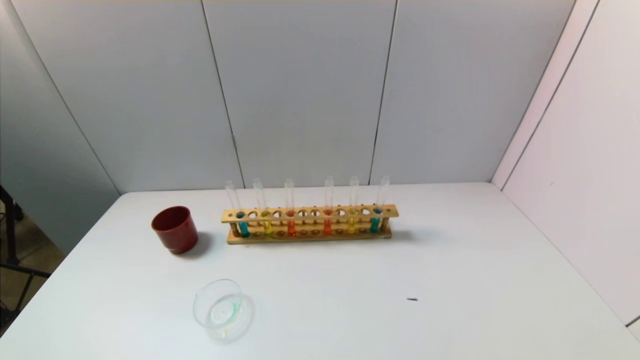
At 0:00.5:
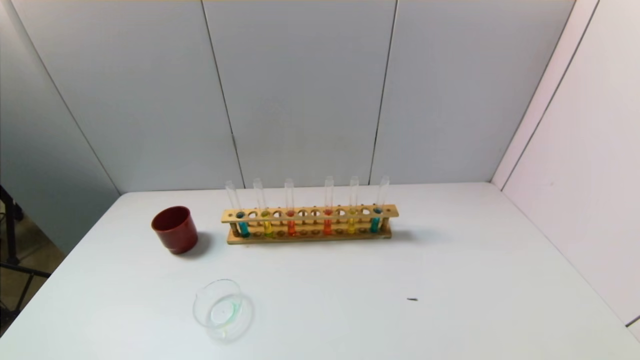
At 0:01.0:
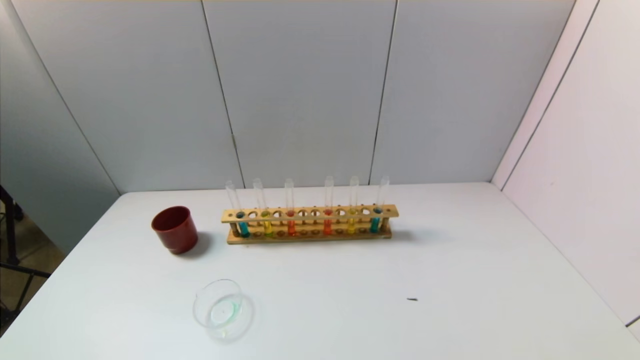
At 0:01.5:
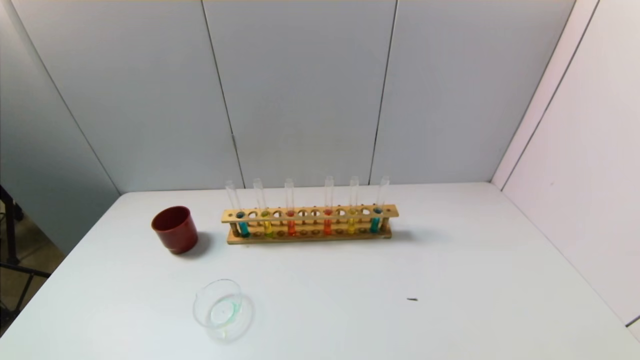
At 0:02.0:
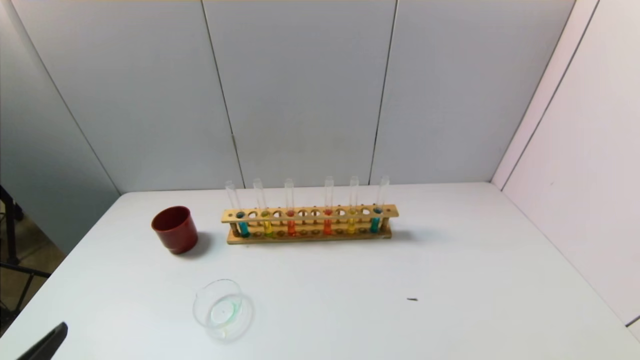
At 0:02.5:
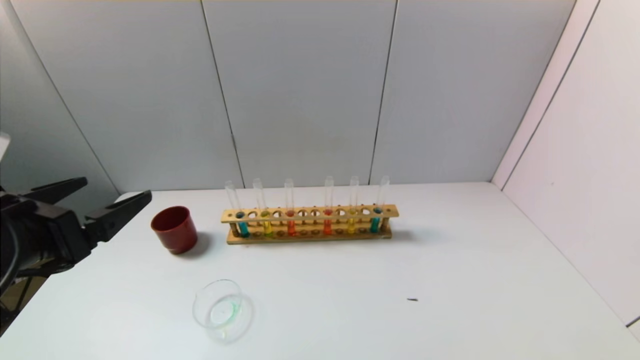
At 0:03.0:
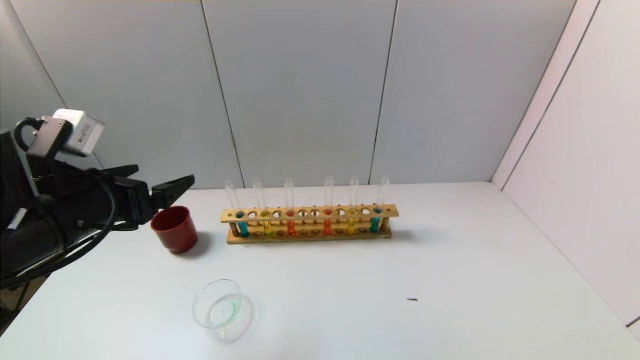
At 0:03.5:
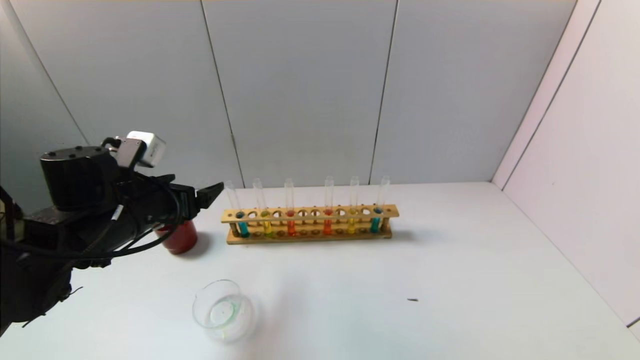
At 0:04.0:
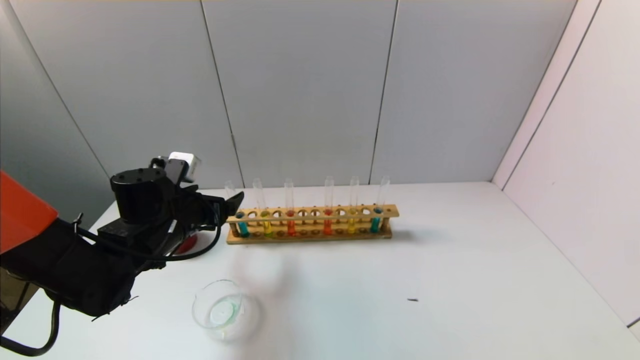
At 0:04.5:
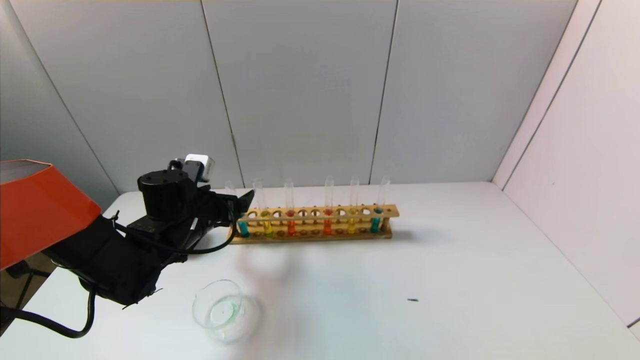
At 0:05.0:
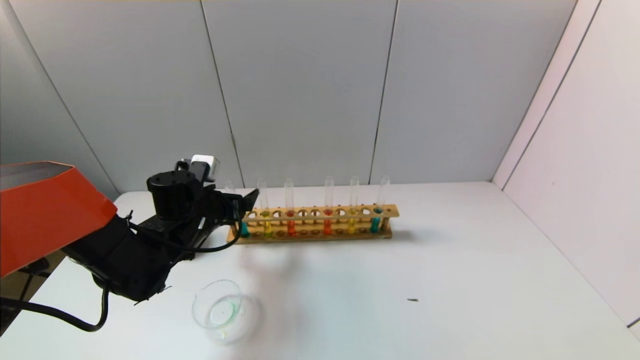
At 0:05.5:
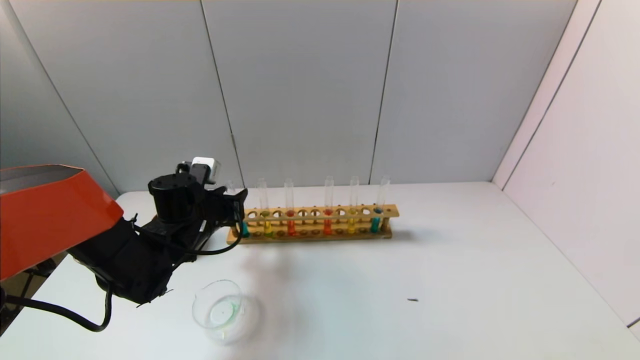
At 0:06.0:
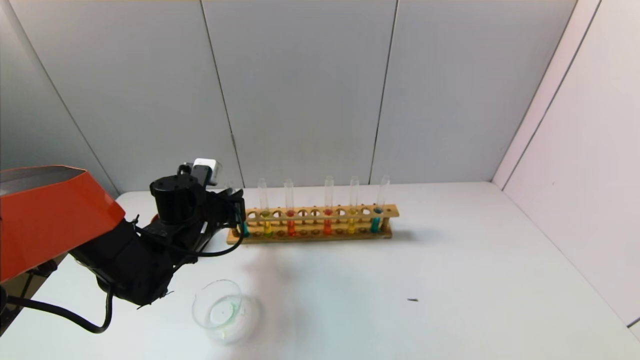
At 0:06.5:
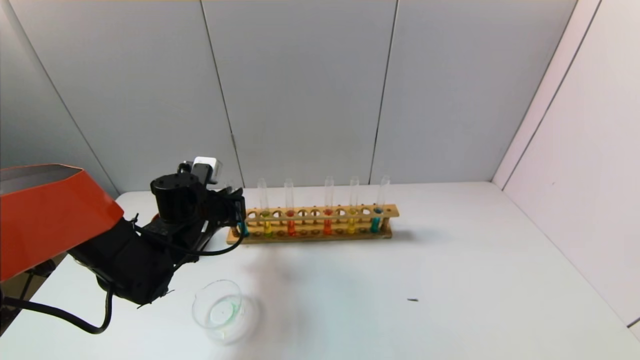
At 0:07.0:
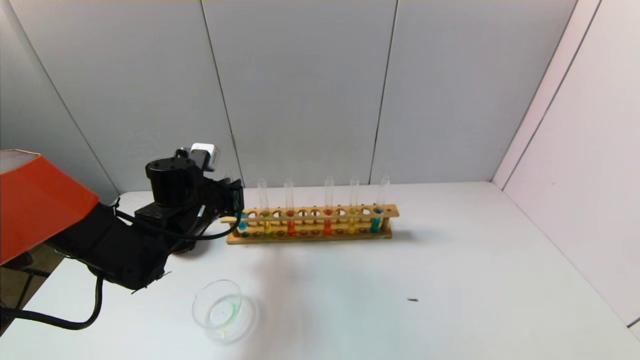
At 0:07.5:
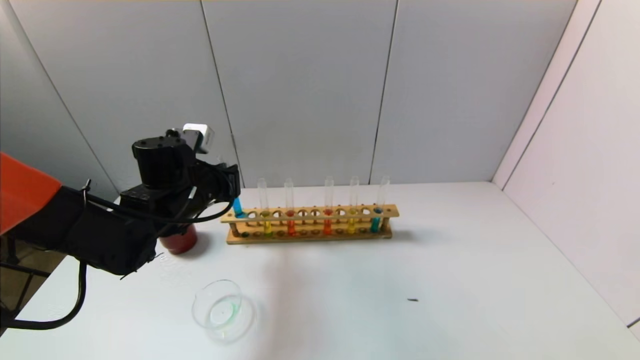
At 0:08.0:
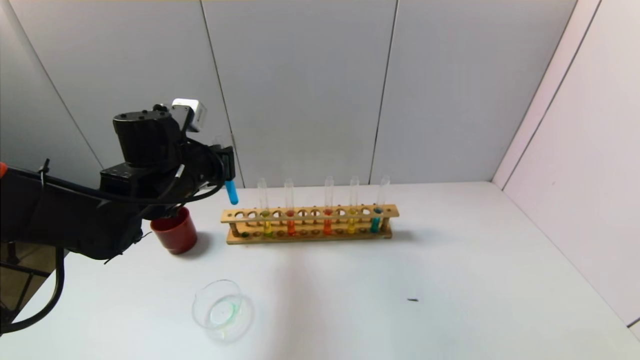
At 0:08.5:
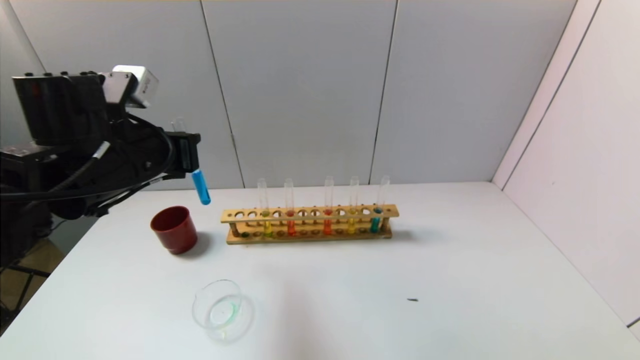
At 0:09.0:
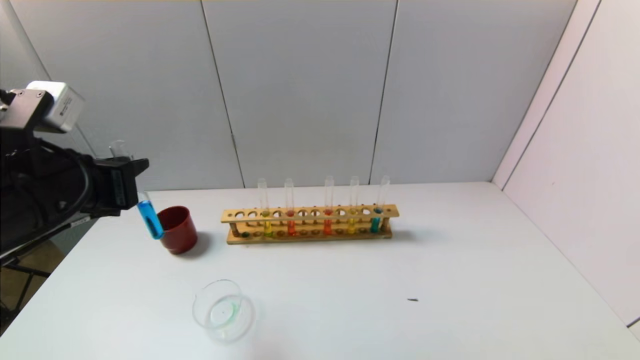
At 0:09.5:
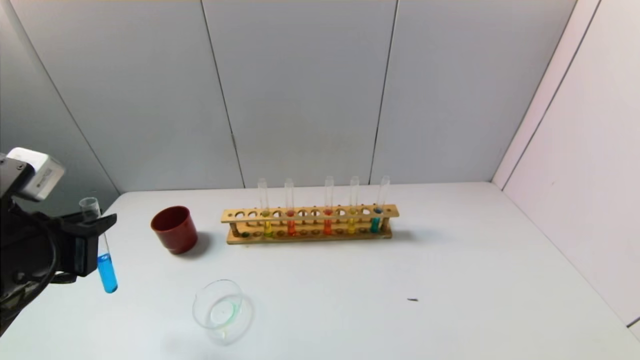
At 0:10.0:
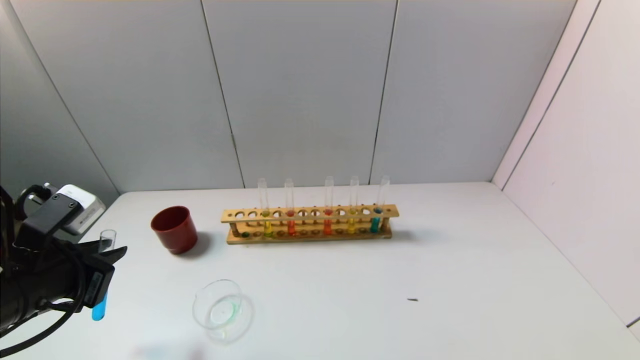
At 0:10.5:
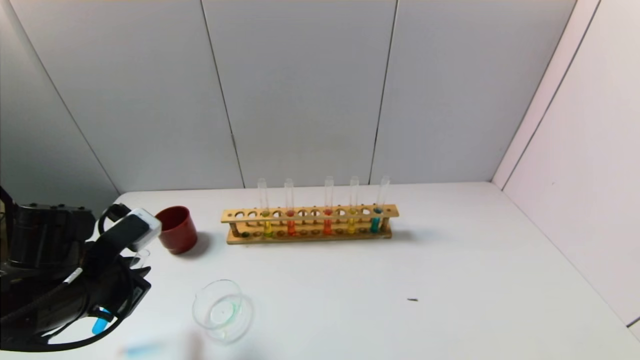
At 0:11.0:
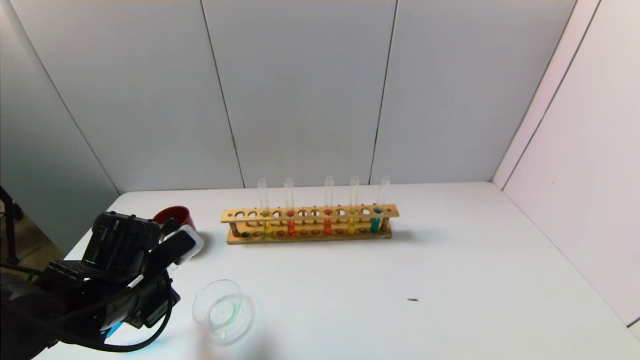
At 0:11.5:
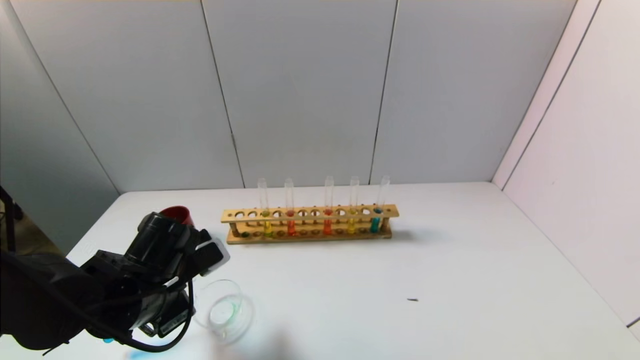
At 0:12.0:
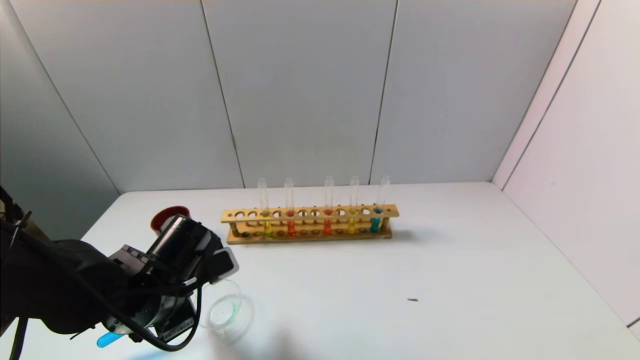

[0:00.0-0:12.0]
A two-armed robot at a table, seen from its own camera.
Task of the whole recording: pick up the test tube with yellow pigment and the test tube with blue pigment by grippers and pour them into the beaker.
Step, 0:00.0 to 0:06.0: Grasp the blue reagent with the left gripper.
0:02.0 to 0:04.0: The left gripper travels forward by about 30 cm.
0:04.0 to 0:06.0: The left gripper closes.
0:06.0 to 0:08.0: The left gripper moves upward, some 10 cm.
0:08.0 to 0:10.0: The left gripper heads backward and to the left, covering roughly 20 cm.
0:10.0 to 0:12.0: The left gripper travels to the right and downward by approximately 10 cm.

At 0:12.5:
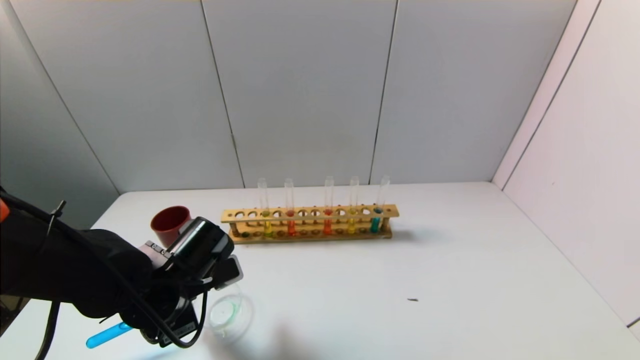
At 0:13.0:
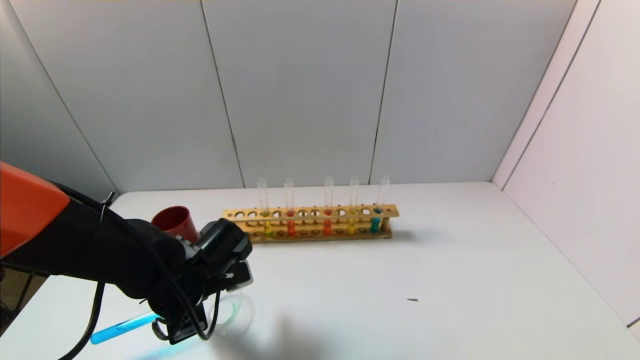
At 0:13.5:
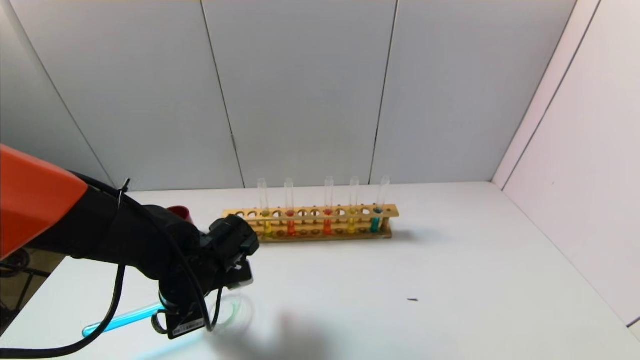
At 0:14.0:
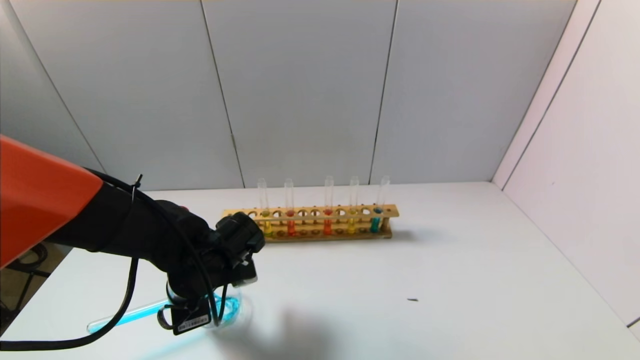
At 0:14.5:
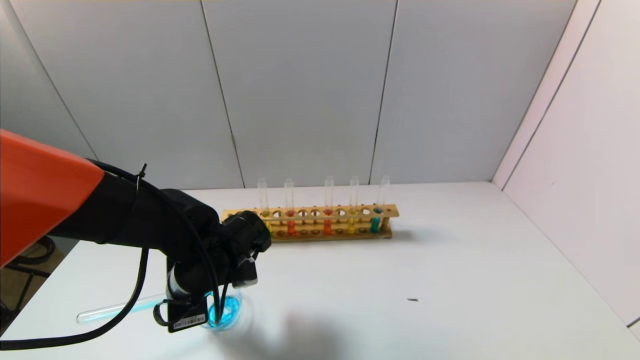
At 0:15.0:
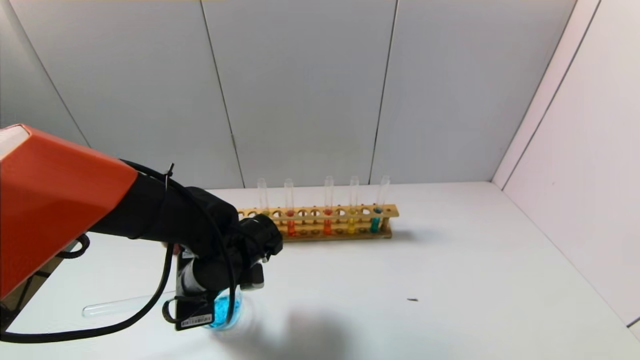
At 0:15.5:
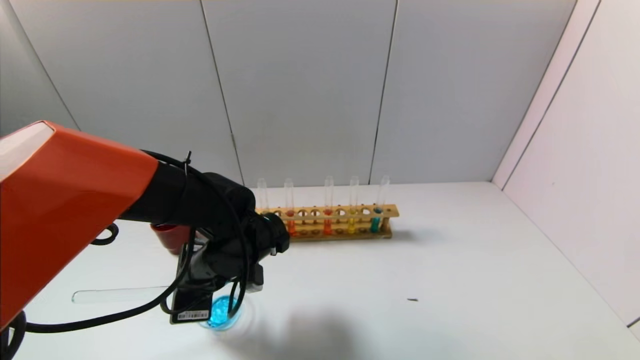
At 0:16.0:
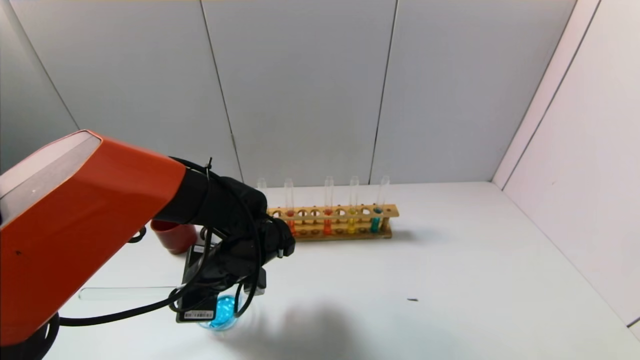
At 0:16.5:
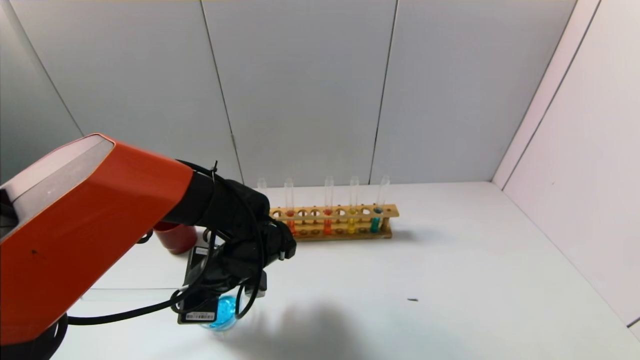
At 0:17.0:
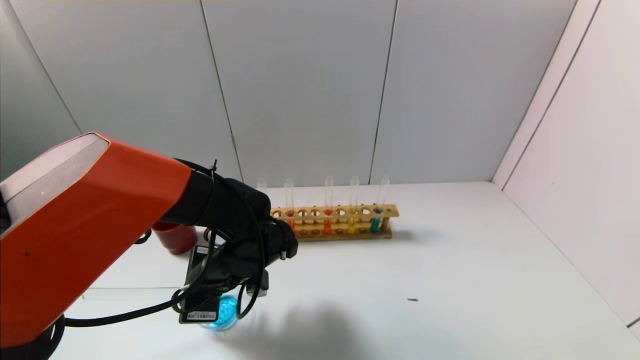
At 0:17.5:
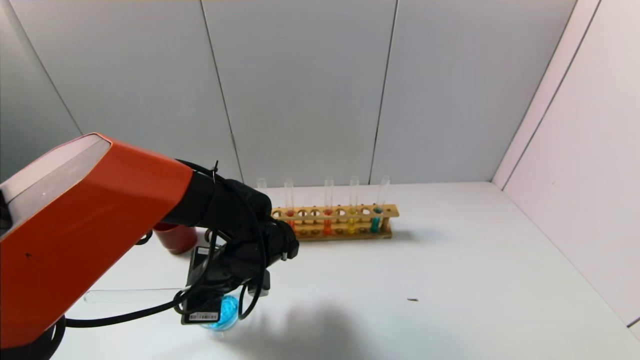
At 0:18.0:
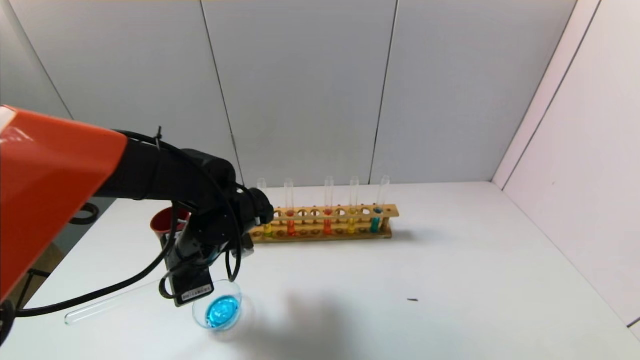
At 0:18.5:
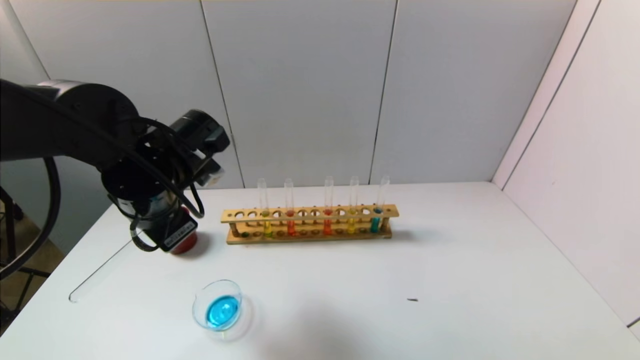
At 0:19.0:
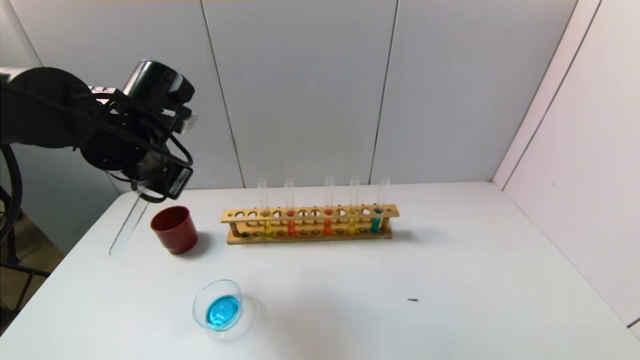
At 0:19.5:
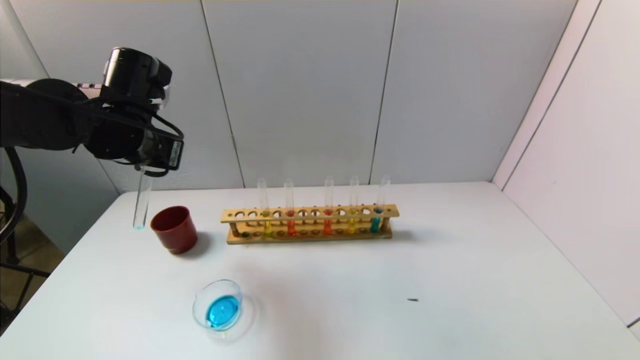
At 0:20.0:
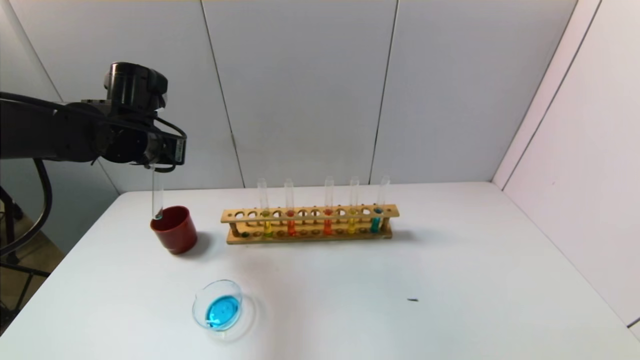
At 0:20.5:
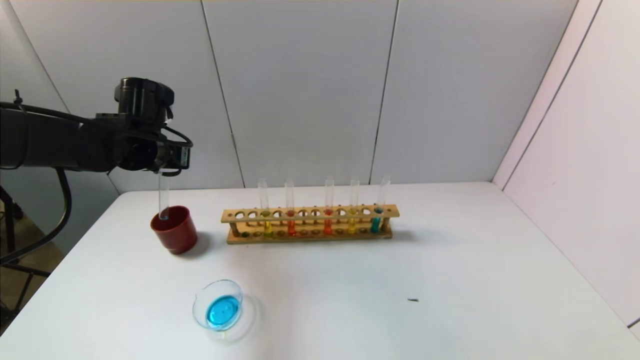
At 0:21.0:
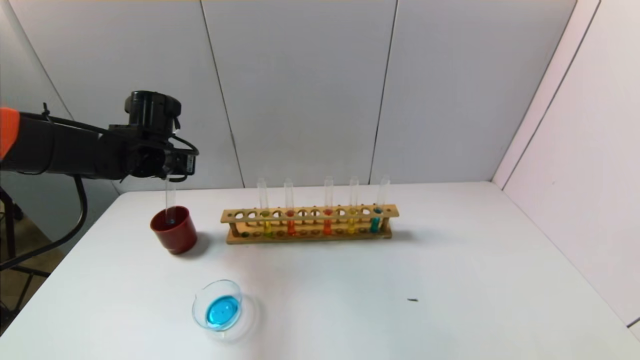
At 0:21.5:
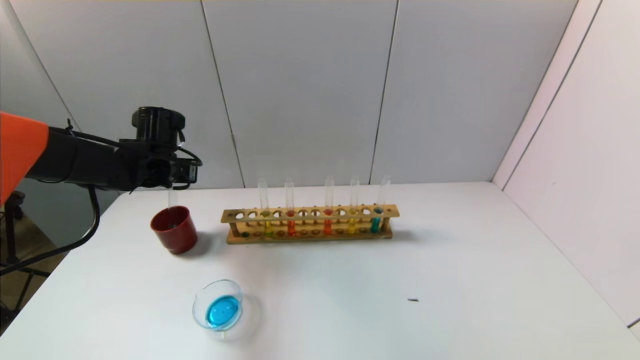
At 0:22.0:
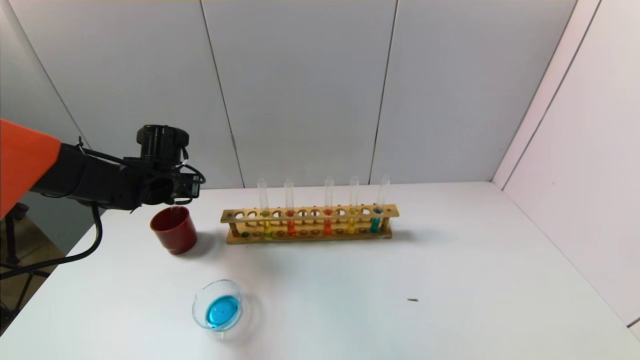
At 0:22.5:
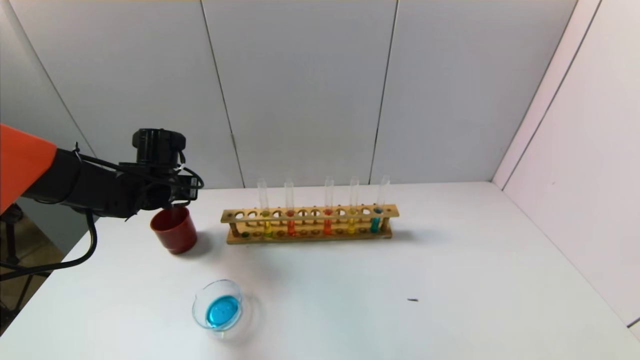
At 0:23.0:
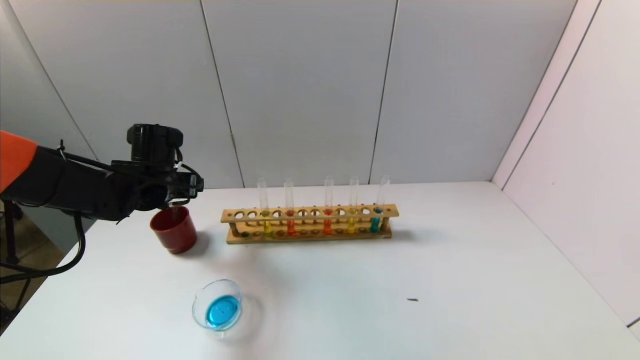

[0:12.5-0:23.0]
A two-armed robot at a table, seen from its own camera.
Task of the whole recording: pick up the test tube with yellow pigment and the test tube with blue pigment by grippers and pour them into the beaker.
Step, 0:12.5 to 0:17.0: Pour the blue reagent into the graduated cylinder with the left gripper.
Step, 0:17.5 to 0:22.5: Place the test tube into the brown cup with the left gripper.
0:12.5 to 0:14.5: The grippers make only small movements.
0:14.5 to 0:16.5: The grippers make only small movements.
0:16.5 to 0:19.0: The left gripper goes some 20 cm upward and to the left.
0:19.0 to 0:21.0: The left gripper shifts approximately 15 cm forward, downward and to the left.
0:21.0 to 0:23.0: The left gripper opens its fingers.
